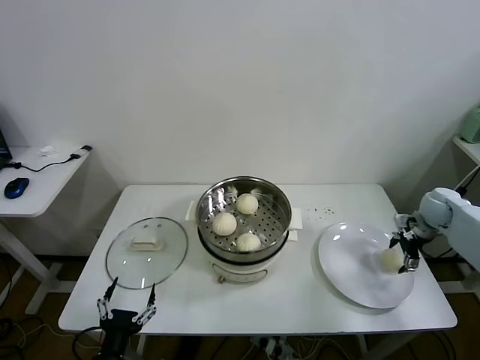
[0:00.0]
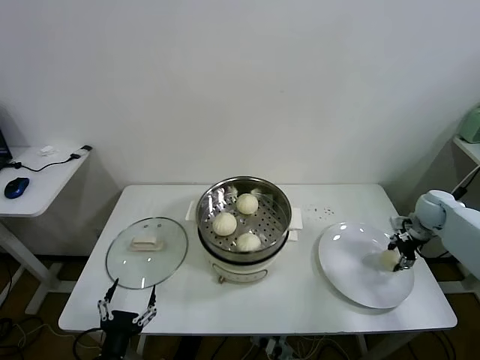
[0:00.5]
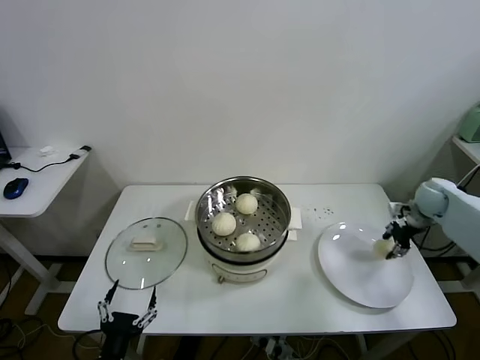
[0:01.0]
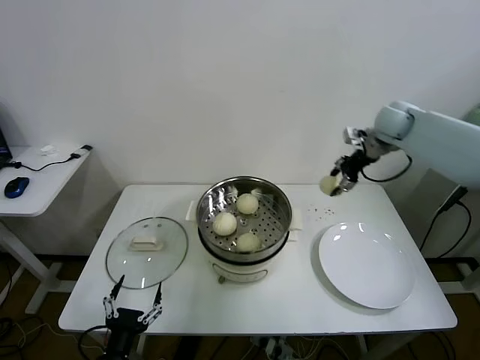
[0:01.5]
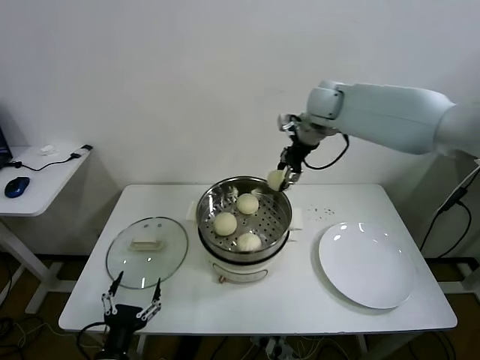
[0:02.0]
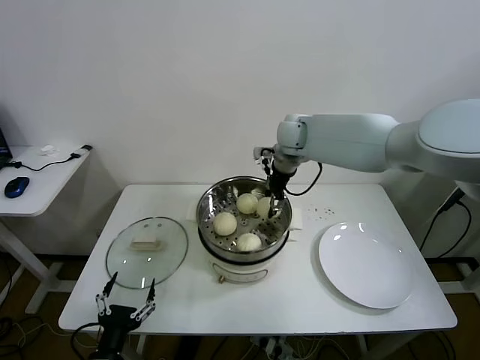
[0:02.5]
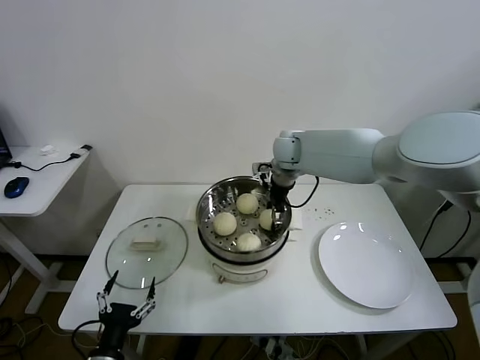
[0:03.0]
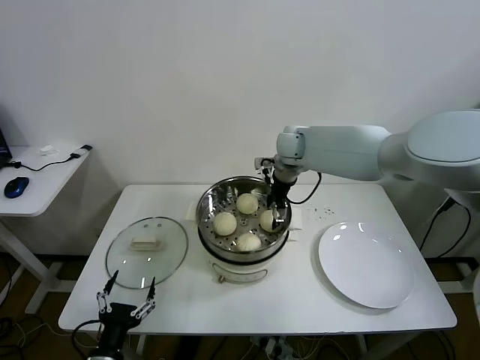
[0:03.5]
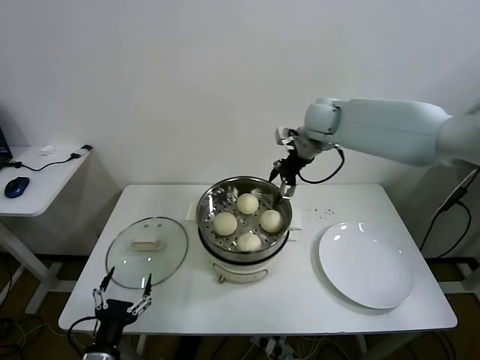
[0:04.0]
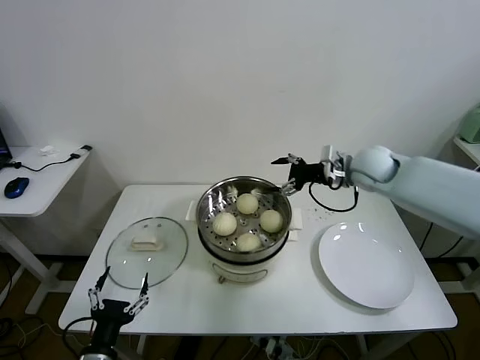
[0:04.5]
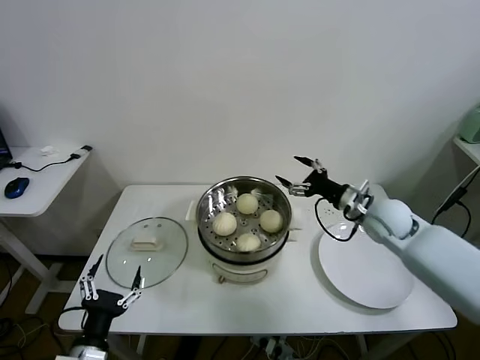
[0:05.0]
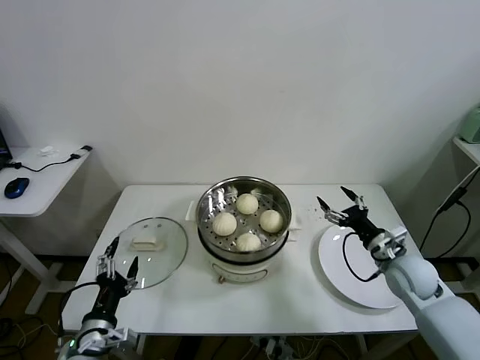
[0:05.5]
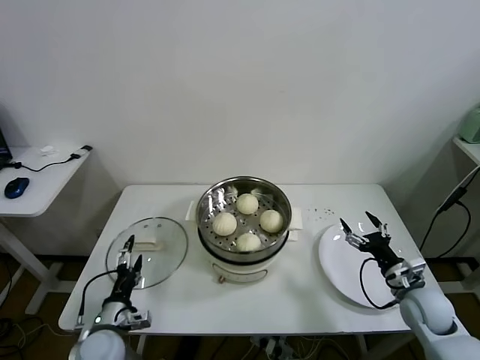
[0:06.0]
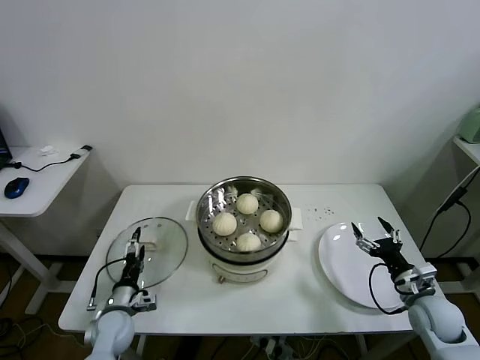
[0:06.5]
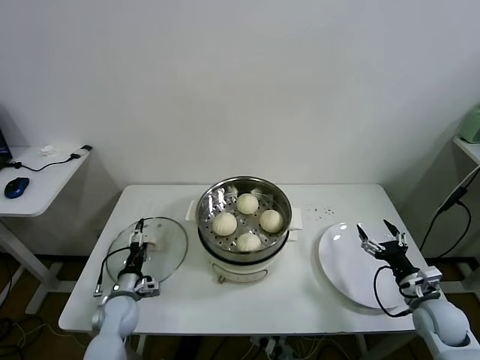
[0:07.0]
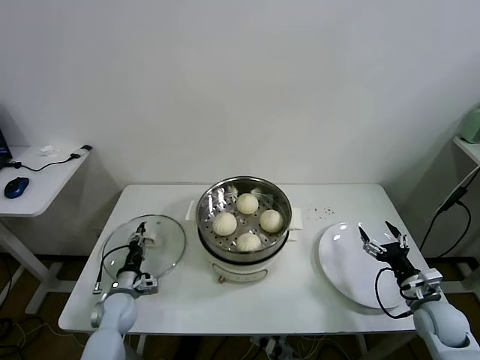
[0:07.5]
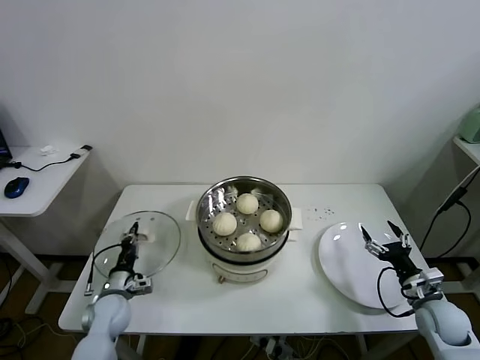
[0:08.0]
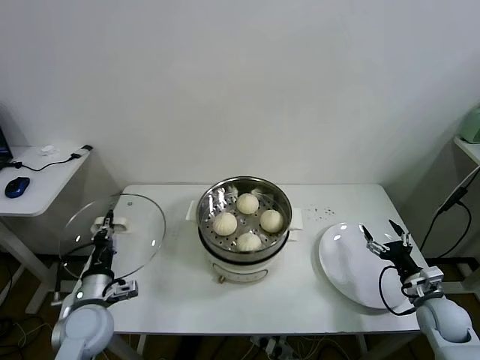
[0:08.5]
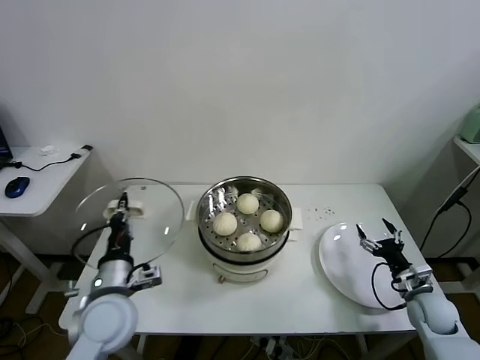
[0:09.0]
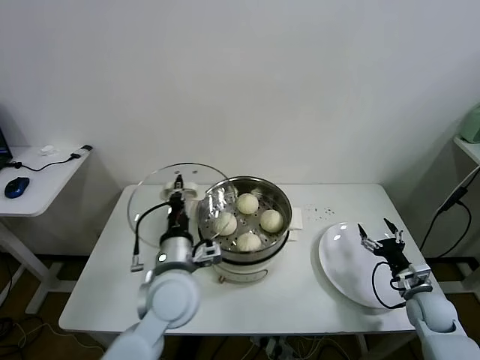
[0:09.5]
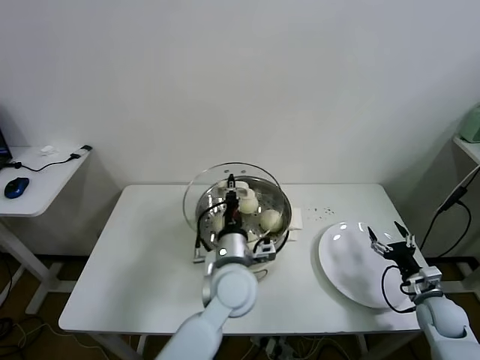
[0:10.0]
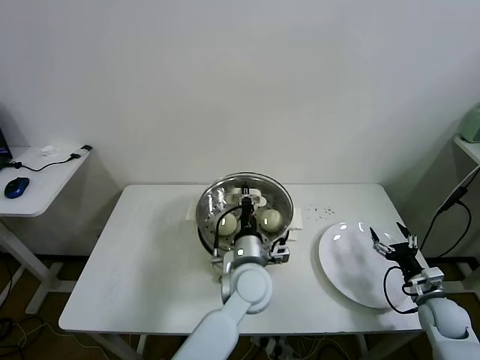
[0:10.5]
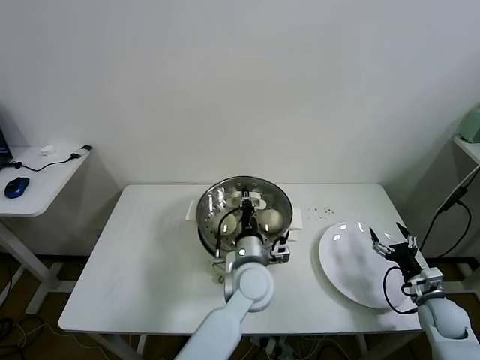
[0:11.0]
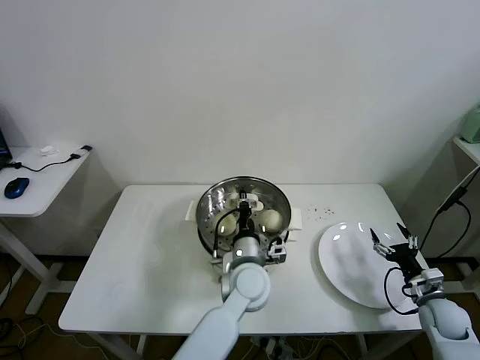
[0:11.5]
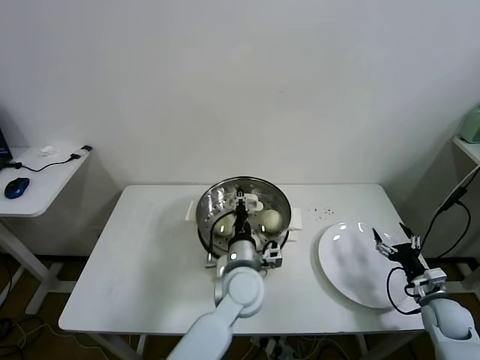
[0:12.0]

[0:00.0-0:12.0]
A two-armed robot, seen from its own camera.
Task of the whole recording: take steamed baozi put them in steamer.
Step, 0:01.0 to 0:03.5: Place the baozi on the steamer with right gripper.
Step, 0:04.0 to 0:07.5: Grasp the pot lid with left gripper.
0:00.0 to 0:02.0: The right gripper heads to the left and upward, covering some 40 cm, and closes.
0:02.0 to 0:04.0: The right gripper reaches approximately 10 cm downward, then returns, and opens.
0:04.0 to 0:06.0: The right gripper goes roughly 50 cm downward, backward and to the right, while the left gripper is displaced forward by approximately 10 cm.
0:06.0 to 0:08.0: The left gripper goes about 10 cm forward, and closes. Meanwhile the right gripper moves approximately 5 cm.
0:08.0 to 0:10.0: The left gripper shifts about 35 cm to the right and upward.
0:10.0 to 0:12.0: The left gripper shifts by roughly 5 cm.

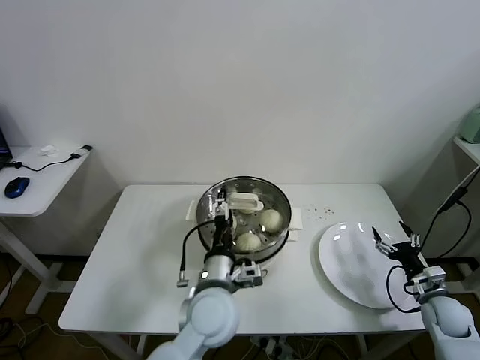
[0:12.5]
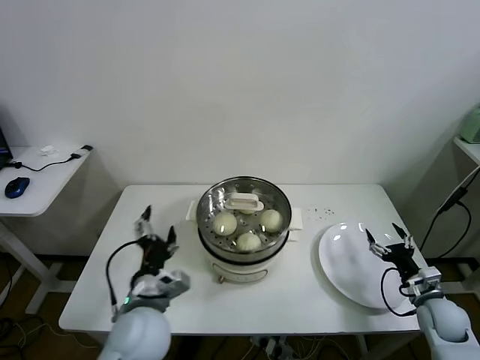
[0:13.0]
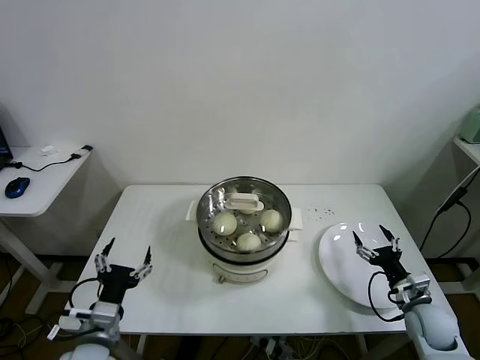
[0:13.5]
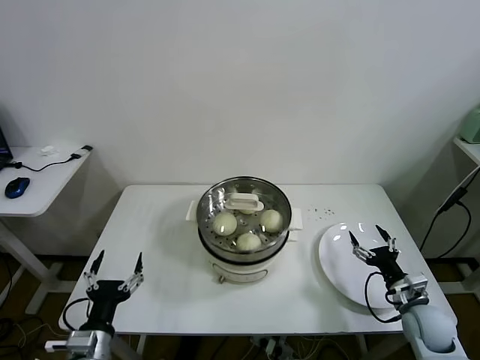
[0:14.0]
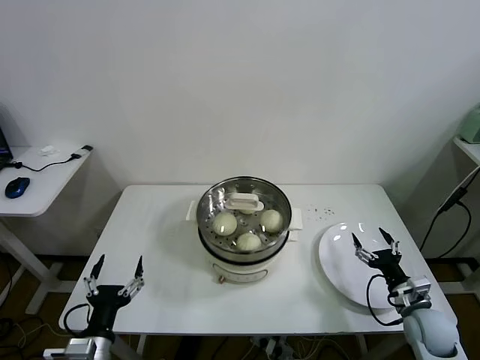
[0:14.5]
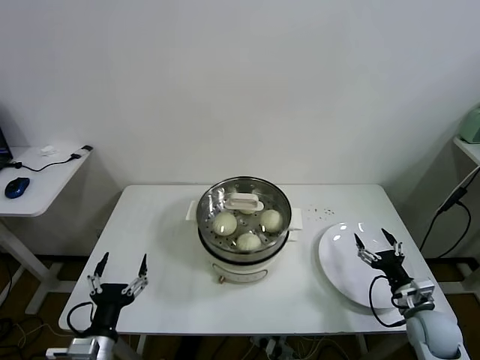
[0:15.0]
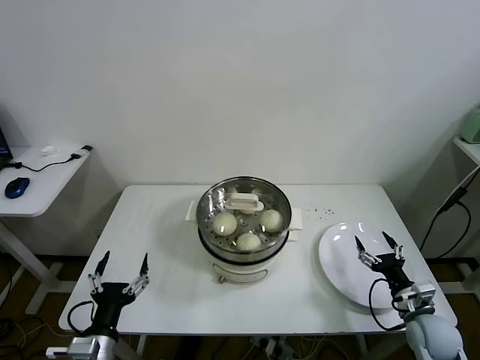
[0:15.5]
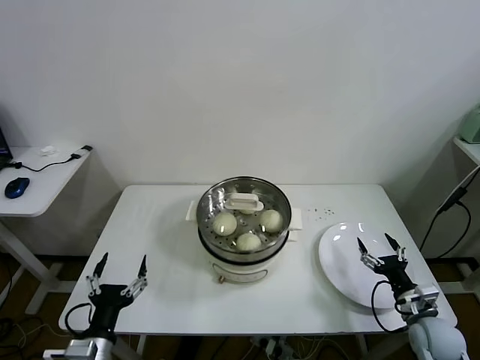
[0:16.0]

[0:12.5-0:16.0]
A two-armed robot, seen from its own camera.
Task of the whole recording: take steamed baozi put them in steamer.
0:12.5 to 0:14.5: The right gripper shifts some 5 cm to the left. The left gripper goes roughly 30 cm to the left and backward.
0:14.5 to 0:16.0: The grippers move only a little.
